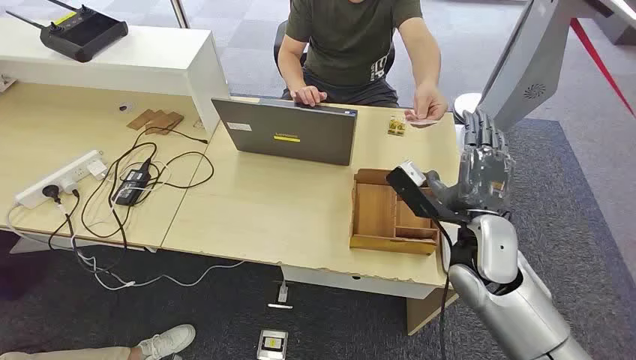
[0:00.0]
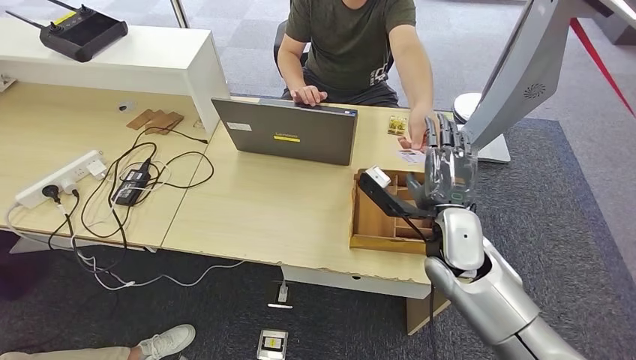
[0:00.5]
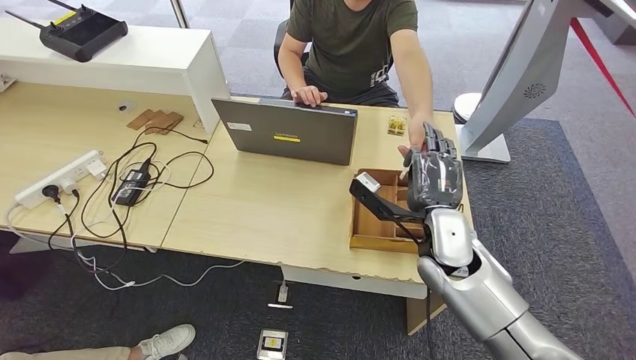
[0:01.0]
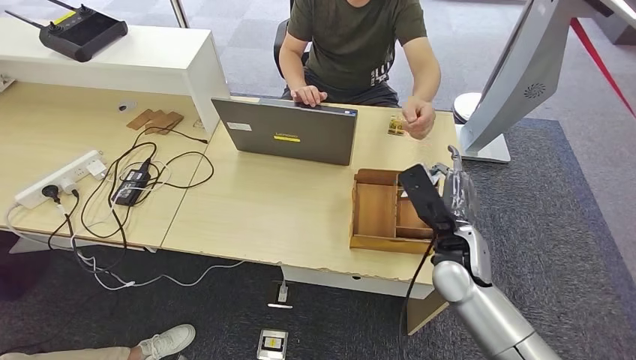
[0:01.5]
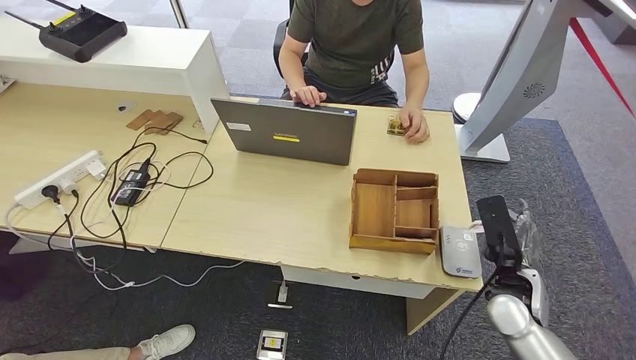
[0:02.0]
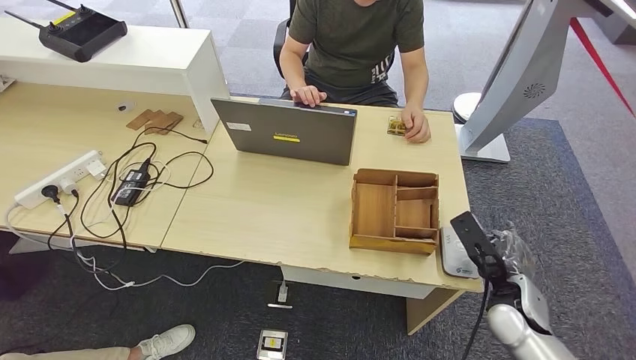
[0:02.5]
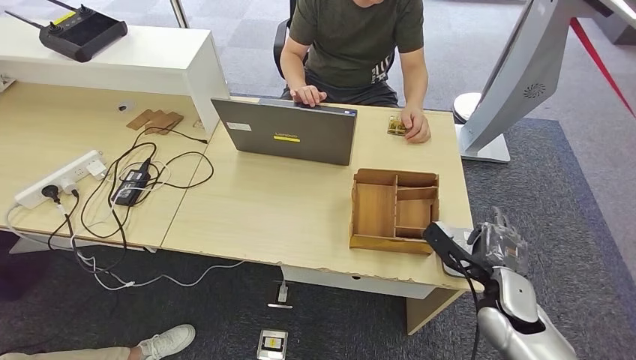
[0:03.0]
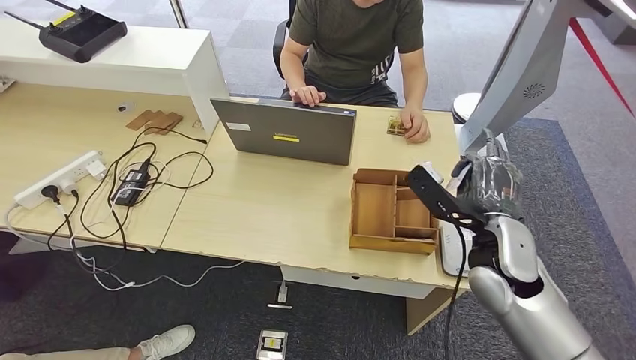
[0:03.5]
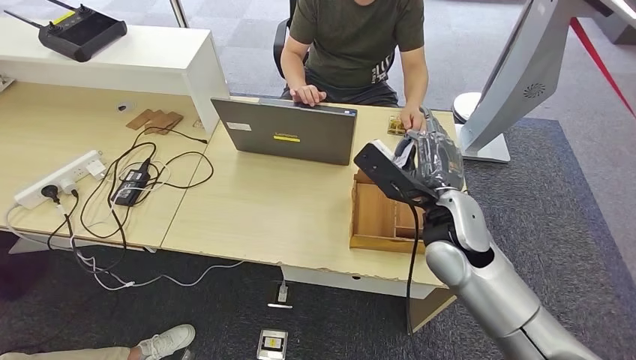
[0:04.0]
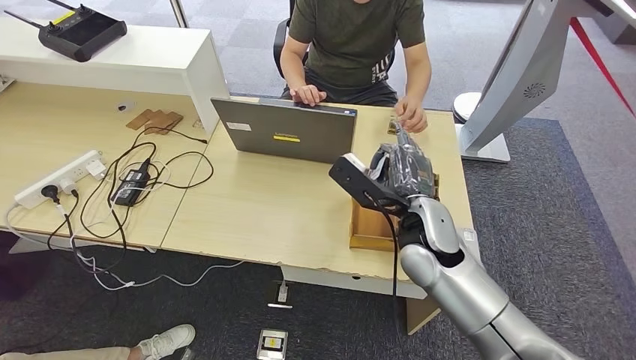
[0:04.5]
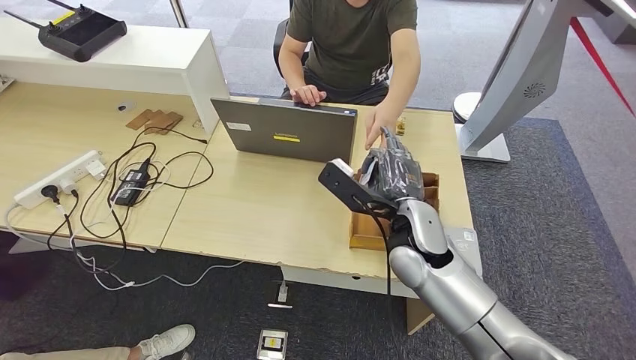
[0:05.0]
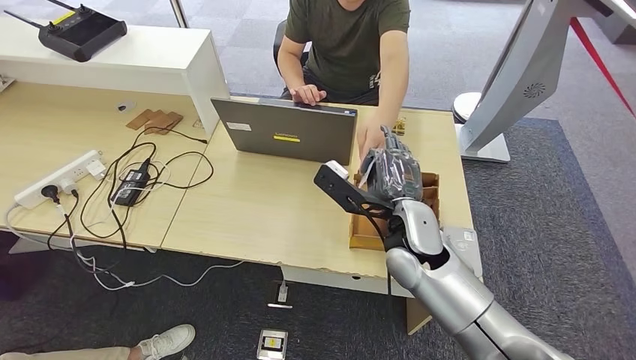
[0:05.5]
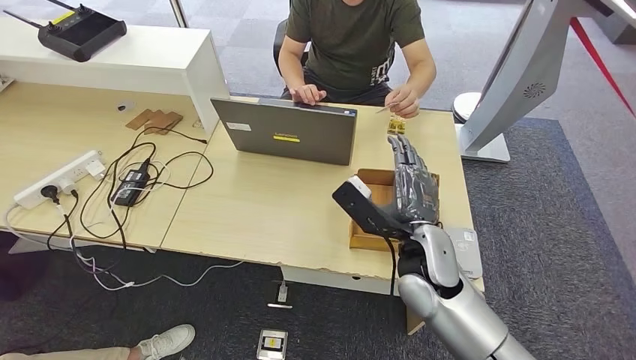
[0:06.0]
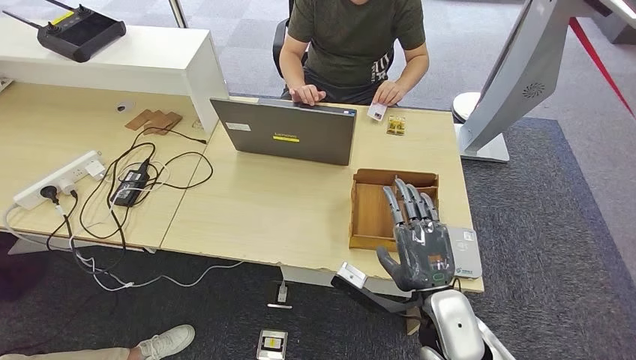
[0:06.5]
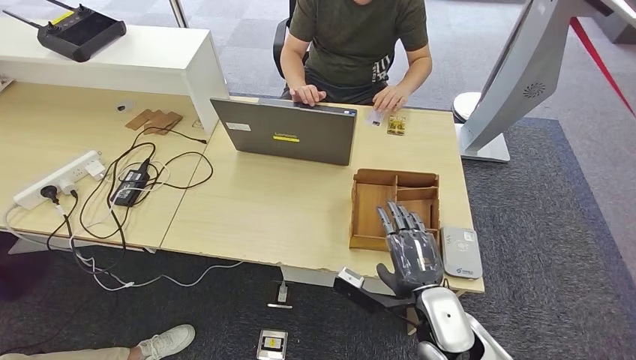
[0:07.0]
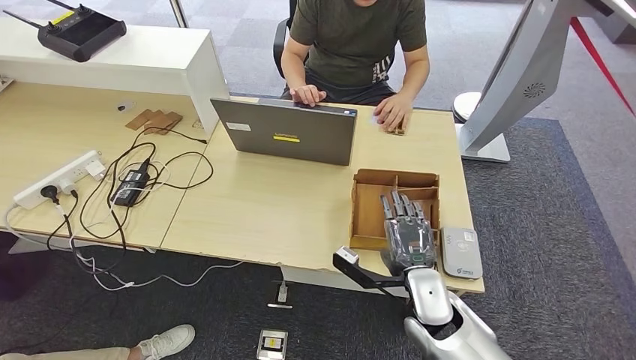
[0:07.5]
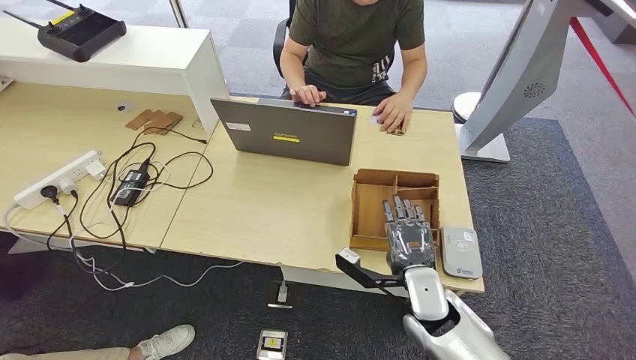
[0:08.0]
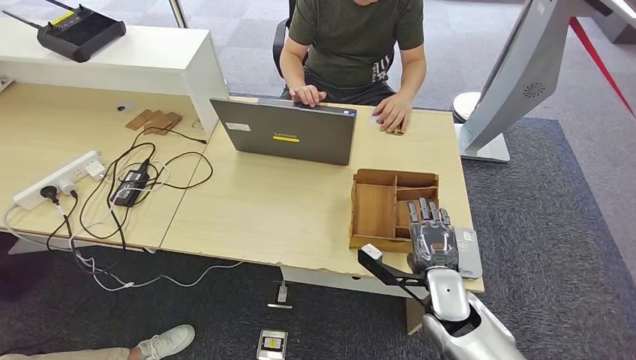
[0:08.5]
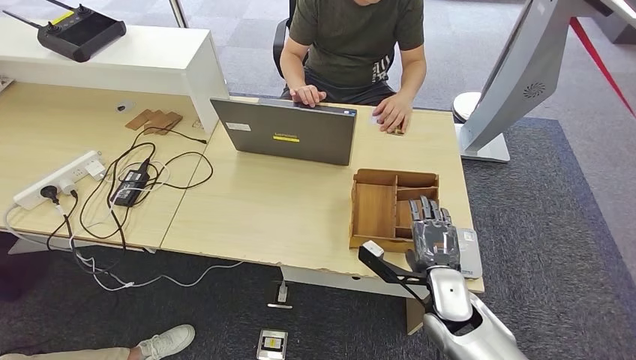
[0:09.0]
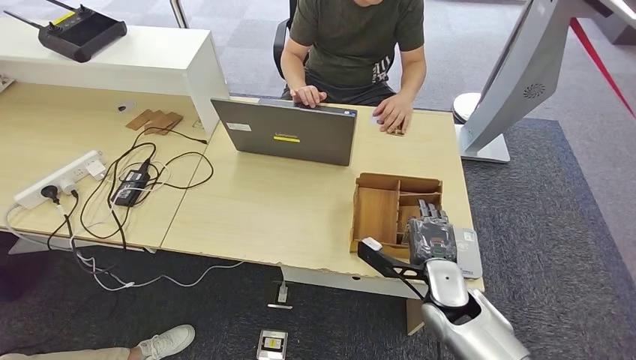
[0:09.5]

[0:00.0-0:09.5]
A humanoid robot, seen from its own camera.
Step, 0:00.0 to 0:01.0: Take the ID card from the person's hand.
Step, 0:01.5 to 0:04.0: Place the ID card on the card reader.
Step, 0:04.5 to 0:08.0: Hand the ID card to the person.
0:02.0 to 0:04.0: The right hand moves to the left and upward, some 20 cm.
0:04.0 to 0:05.5: The right hand moves about 5 cm.
0:05.5 to 0:07.5: The right hand goes roughly 15 cm downward and backward.
0:07.5 to 0:09.5: The hands make only small movements.

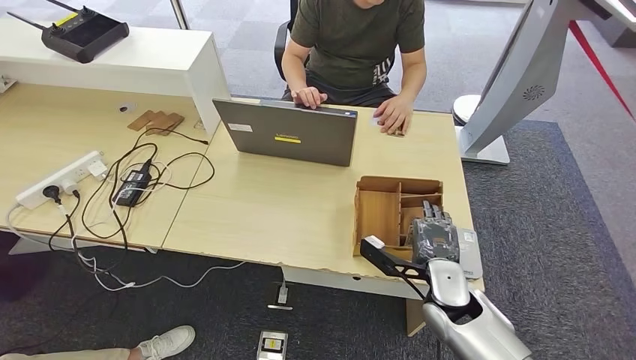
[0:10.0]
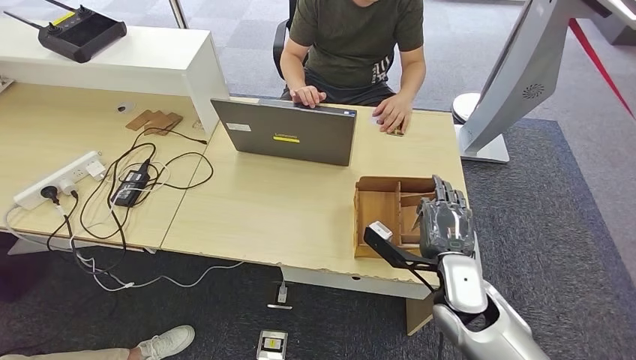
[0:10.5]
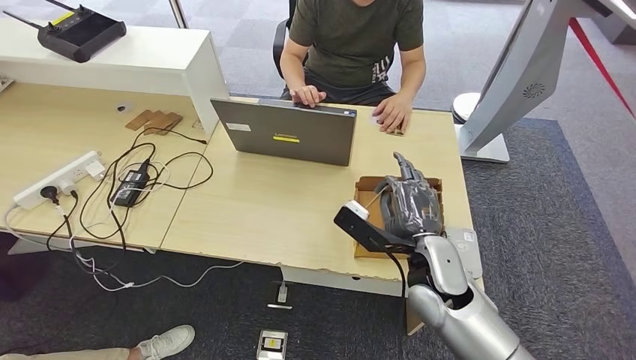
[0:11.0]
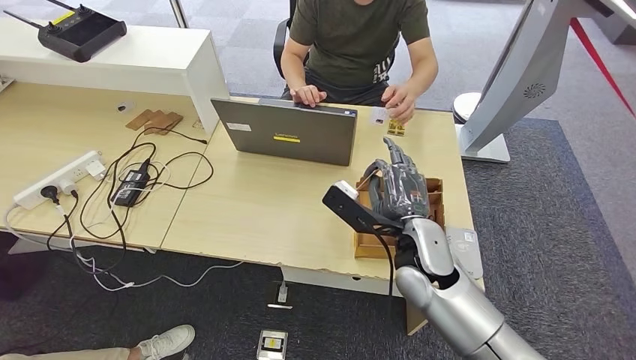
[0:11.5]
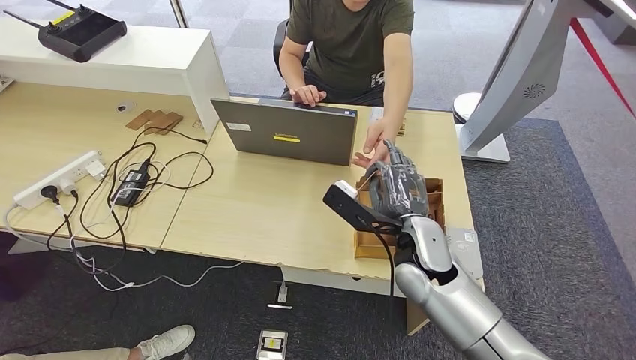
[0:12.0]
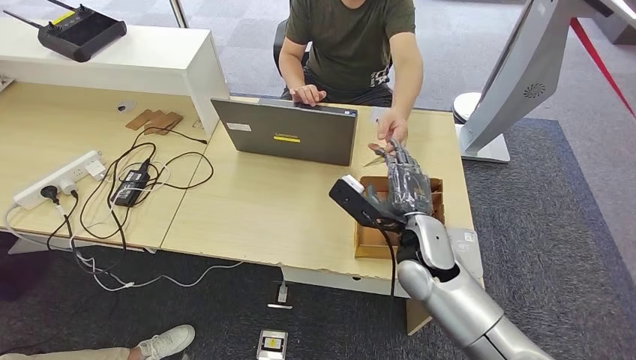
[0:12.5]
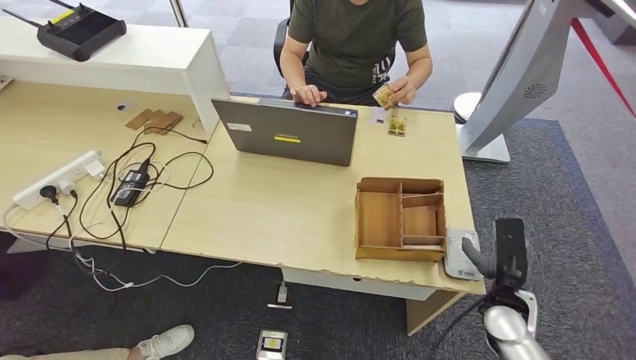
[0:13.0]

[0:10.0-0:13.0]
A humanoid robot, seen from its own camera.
Step, 0:10.0 to 0:13.0: Hand the room key to the person.
0:10.0 to 0:11.5: The right hand moves upward and to the left, approximately 10 cm.
0:11.5 to 0:13.0: The right hand moves to the right and downward, roughly 20 cm.
